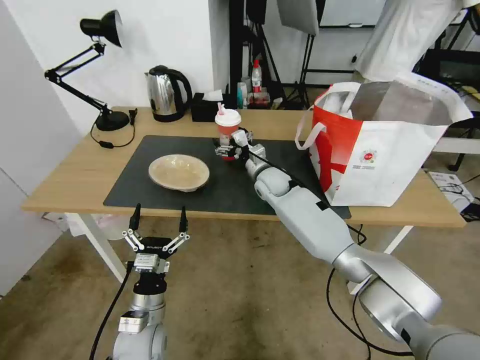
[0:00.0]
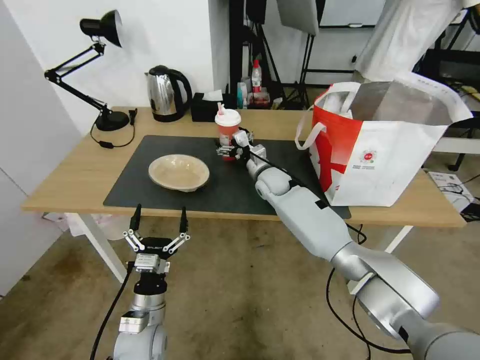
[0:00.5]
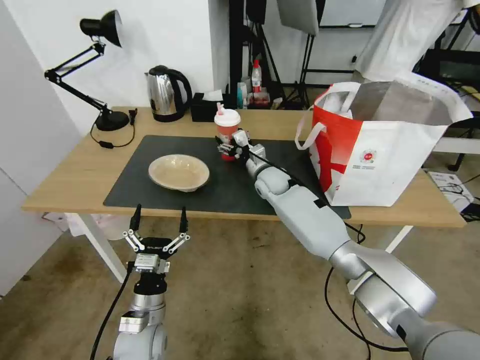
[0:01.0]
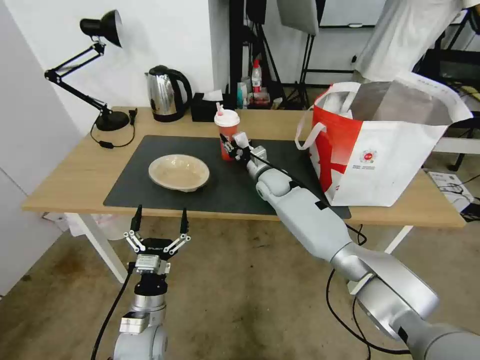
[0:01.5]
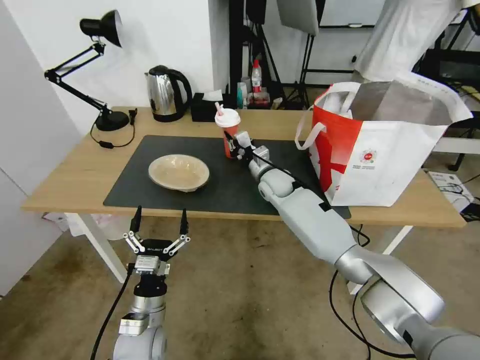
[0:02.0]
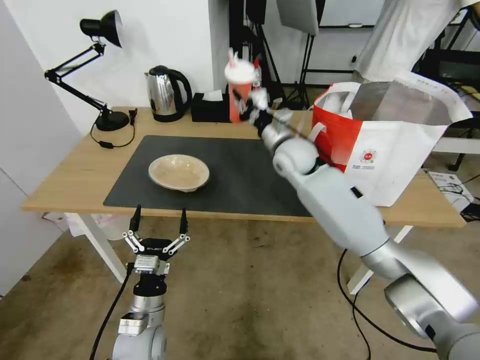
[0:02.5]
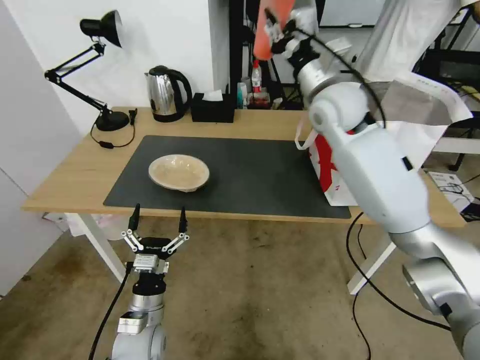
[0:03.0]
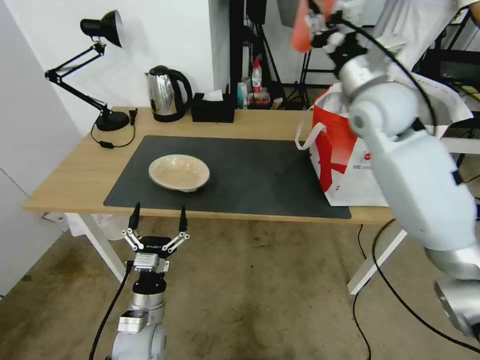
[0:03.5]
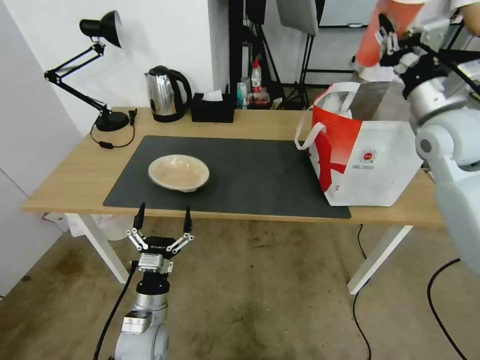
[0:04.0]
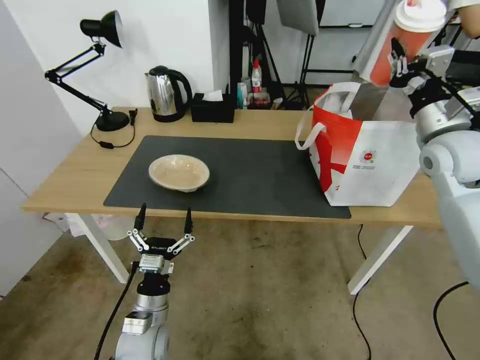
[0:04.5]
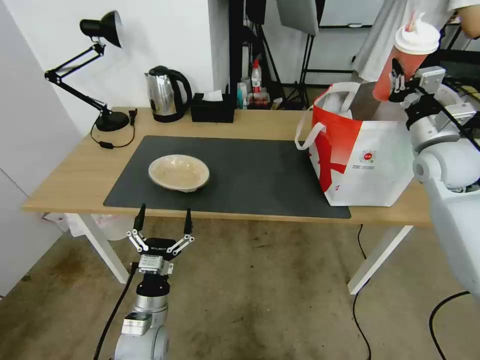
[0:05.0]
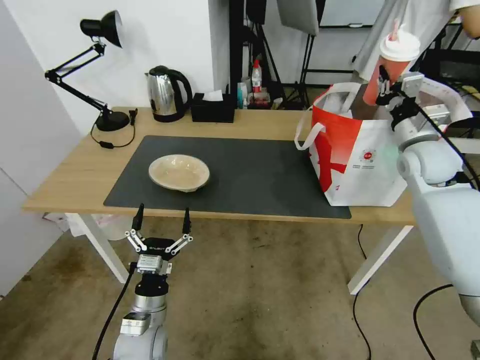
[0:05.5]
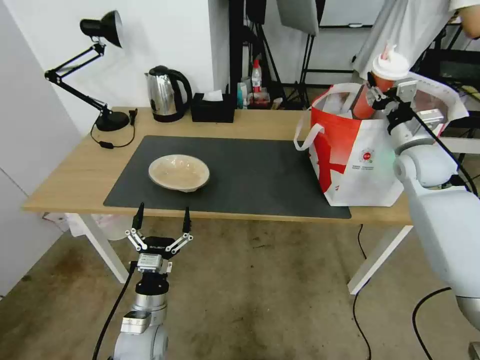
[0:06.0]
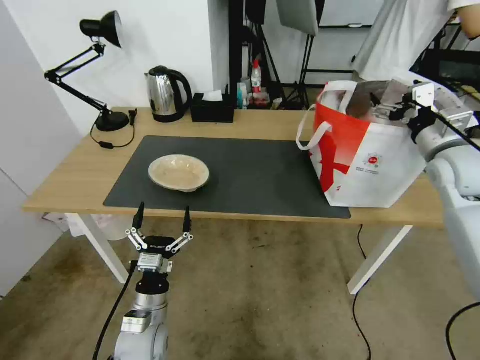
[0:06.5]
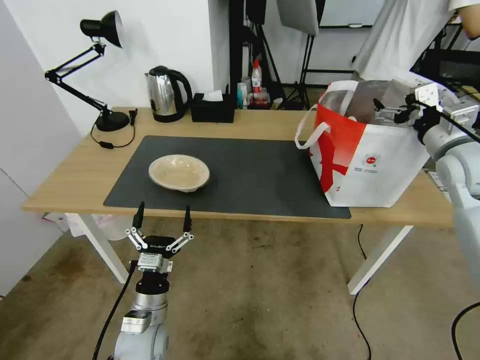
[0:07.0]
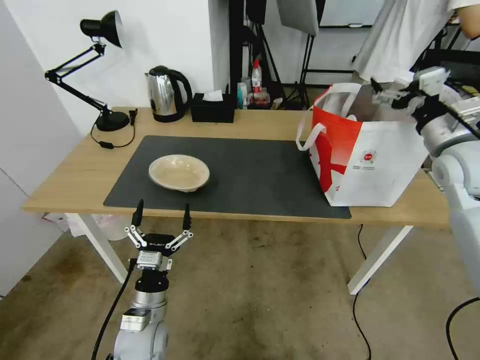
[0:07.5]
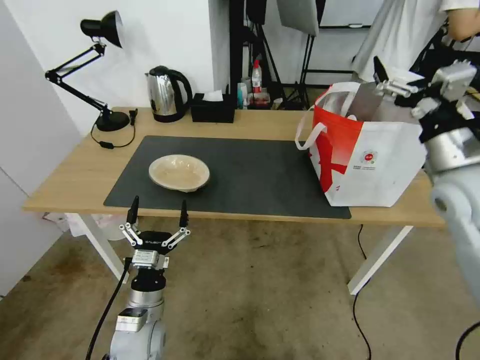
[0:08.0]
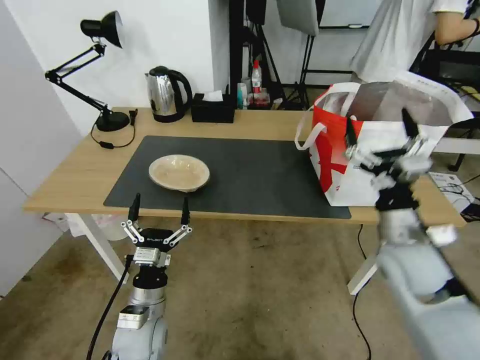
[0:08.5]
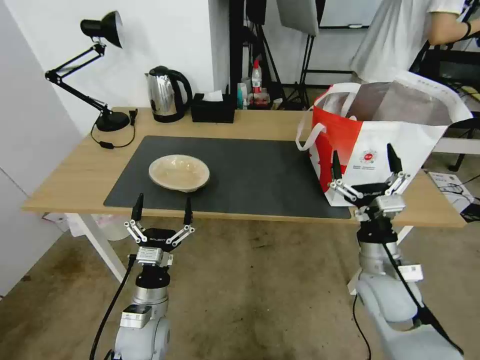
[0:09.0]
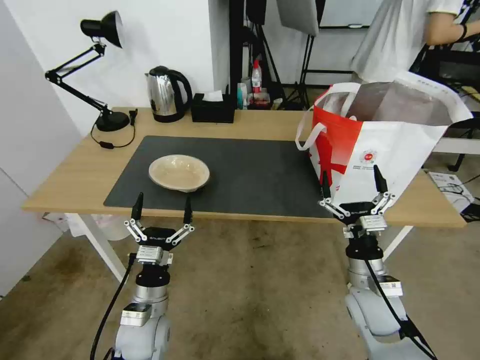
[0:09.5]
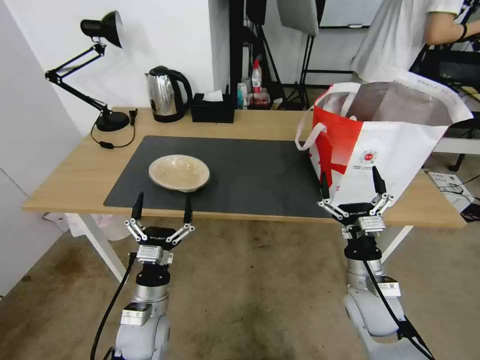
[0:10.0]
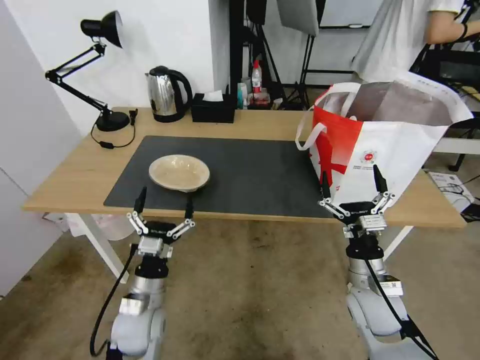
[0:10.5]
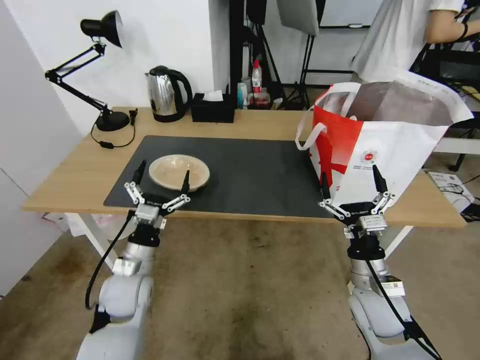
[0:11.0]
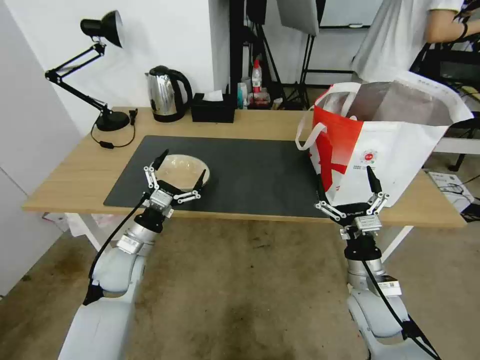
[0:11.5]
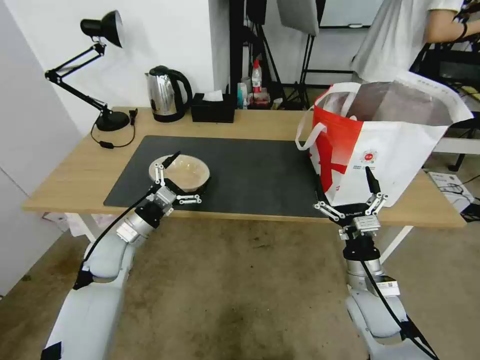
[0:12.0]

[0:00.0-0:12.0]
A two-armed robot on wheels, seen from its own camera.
Task of the whole recording: Pick up the trash from the table and place it into the takeout bag.
0:00.0 to 0:02.0: The right gripper closes its fingers.
0:02.0 to 0:04.0: The right gripper shifts some 40 cm upward, to the right and backward.
0:04.0 to 0:06.0: The right gripper goes some 10 cm downward, and opens up.
0:06.0 to 0:08.0: The right gripper goes roughly 15 cm backward, and opens.
0:08.0 to 0:10.0: The right gripper moves downward, approximately 25 cm.
0:10.0 to 0:12.0: The left gripper is displaced forward, to the left and upward by roughly 20 cm.

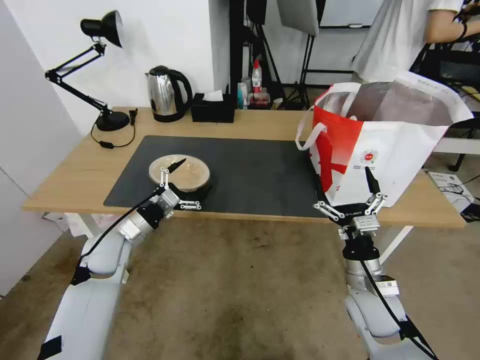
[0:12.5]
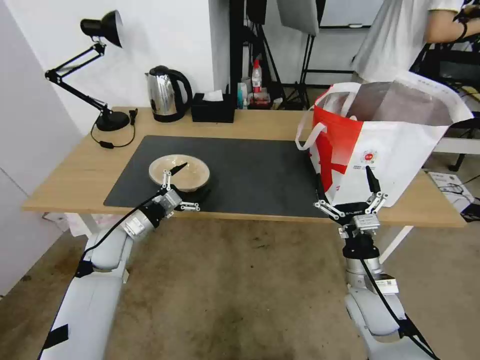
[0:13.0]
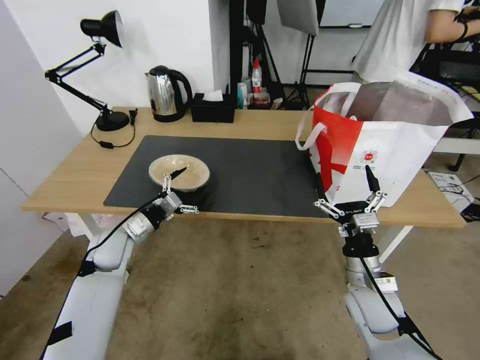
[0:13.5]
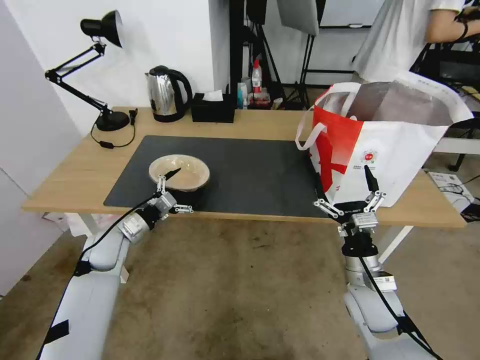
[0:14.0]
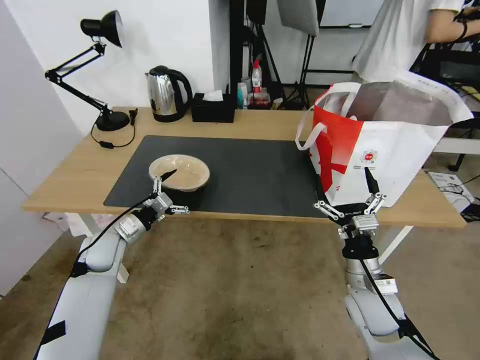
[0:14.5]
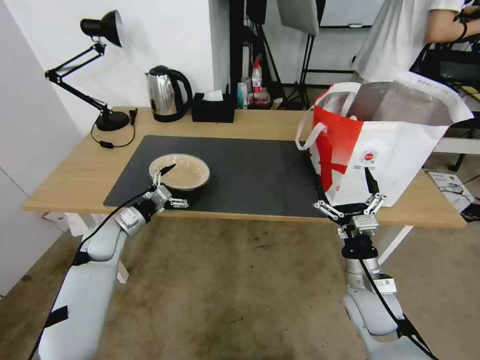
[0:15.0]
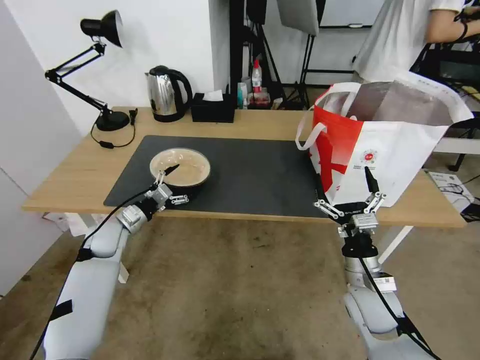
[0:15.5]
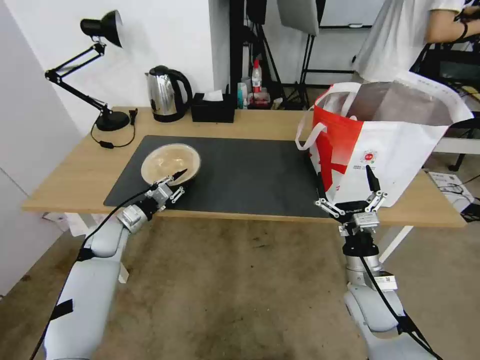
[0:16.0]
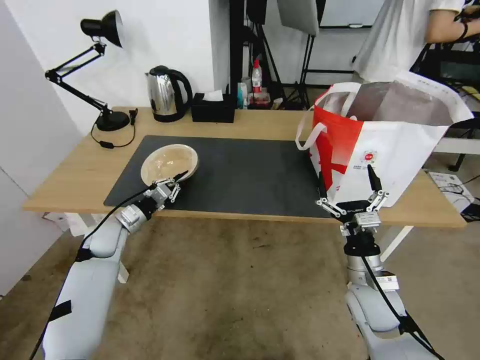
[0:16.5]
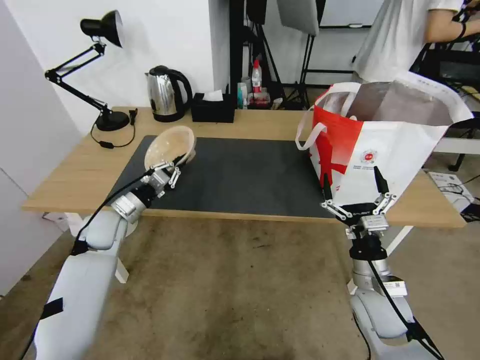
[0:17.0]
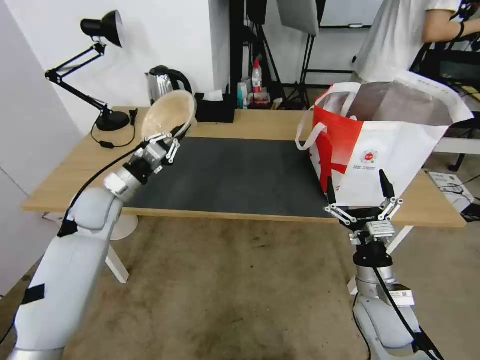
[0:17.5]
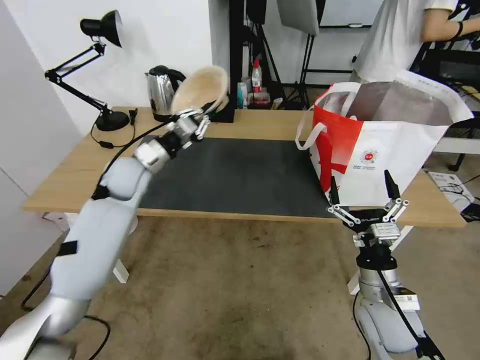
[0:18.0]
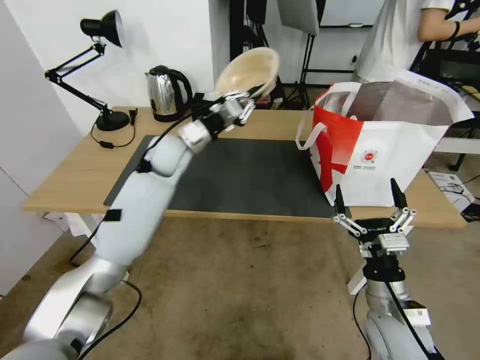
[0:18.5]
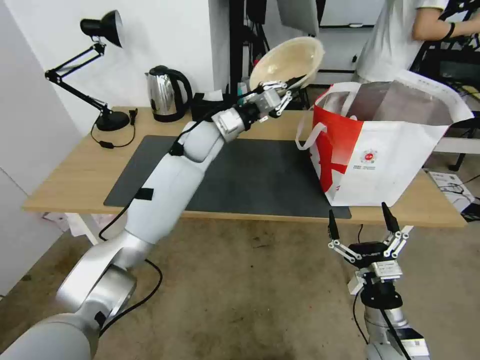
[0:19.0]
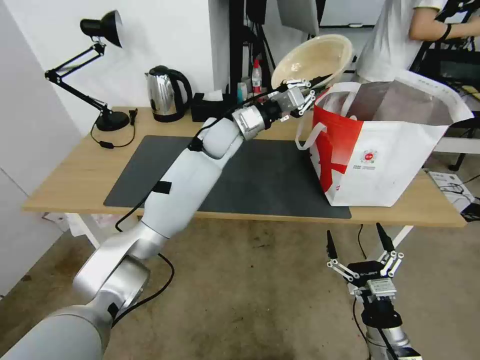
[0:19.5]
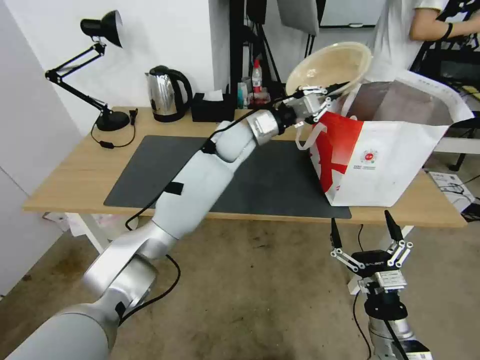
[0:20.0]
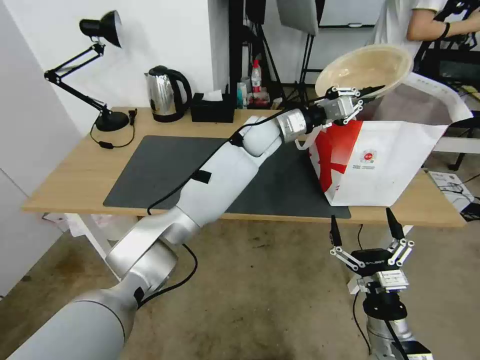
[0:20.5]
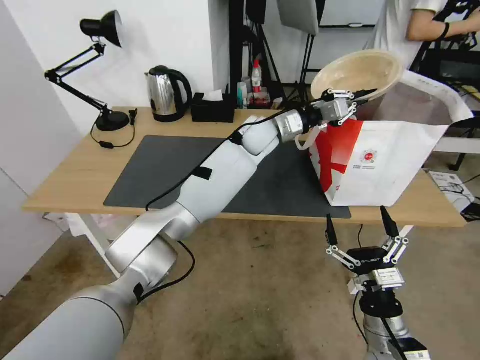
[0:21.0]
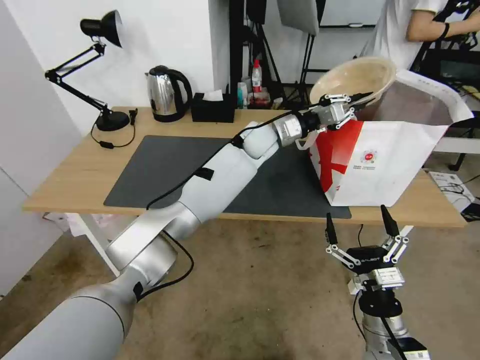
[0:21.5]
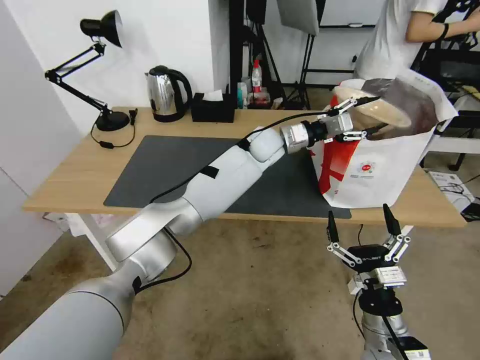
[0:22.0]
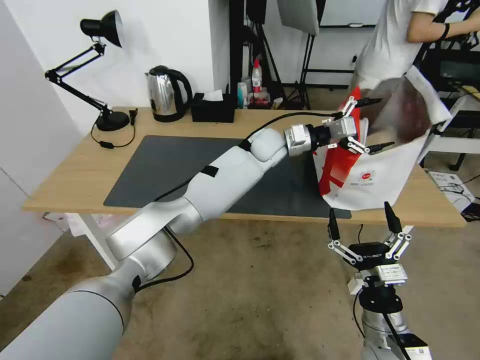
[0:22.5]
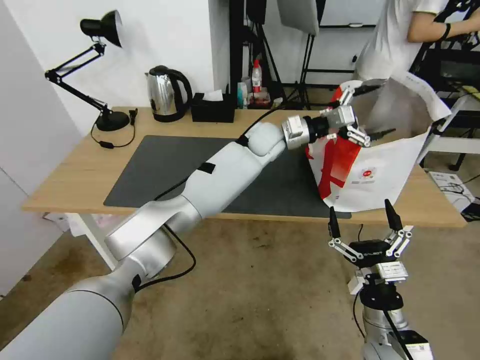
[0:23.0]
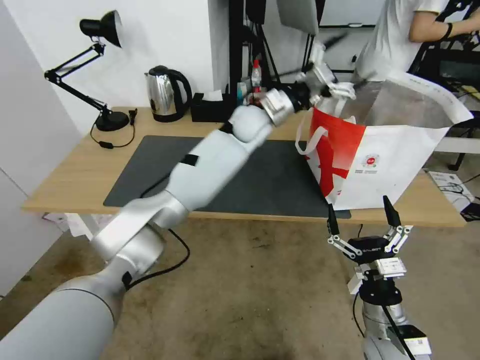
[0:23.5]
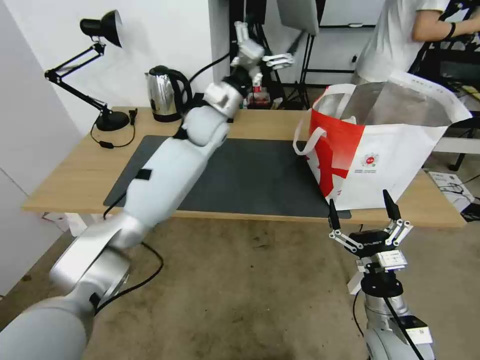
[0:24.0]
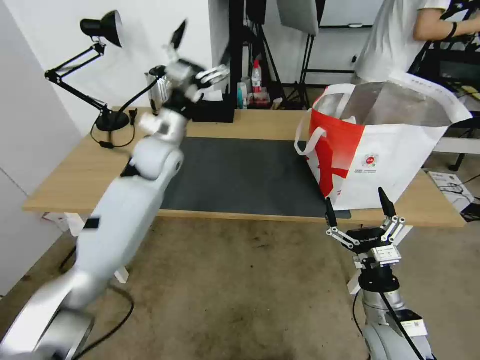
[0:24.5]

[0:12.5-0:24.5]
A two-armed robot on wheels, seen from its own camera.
Task of the whole recording: Pick up the trash from the table and place it into the takeout bag.
0:12.5 to 0:14.5: The left gripper changes place by approximately 5 cm.
0:14.5 to 0:16.5: The left gripper closes its fingers.
0:16.5 to 0:18.5: The left gripper heads upward, to the right and forward, covering about 30 cm, while the right gripper heads backward, covering some 5 cm.
0:18.5 to 0:20.5: The right gripper goes about 5 cm backward. Meanwhile the left gripper travels to the right by about 20 cm.
0:20.5 to 0:22.5: The left gripper opens up.
0:22.5 to 0:24.5: The left gripper shifts some 25 cm to the left.

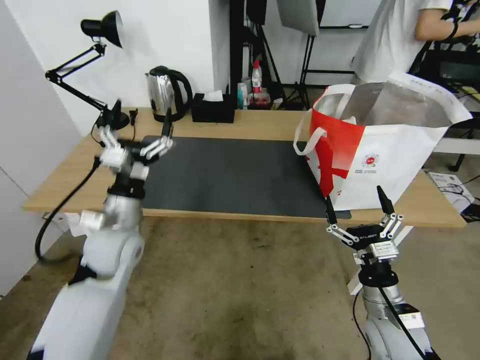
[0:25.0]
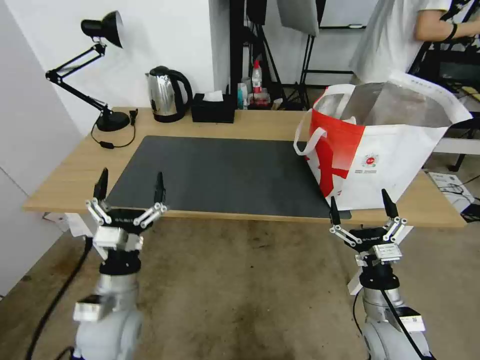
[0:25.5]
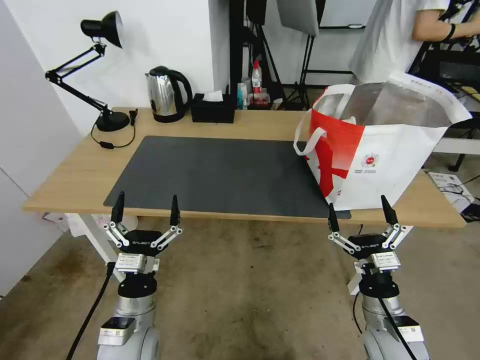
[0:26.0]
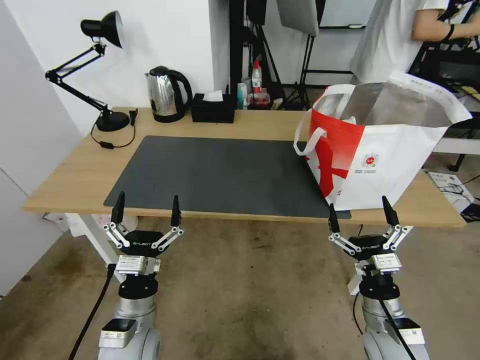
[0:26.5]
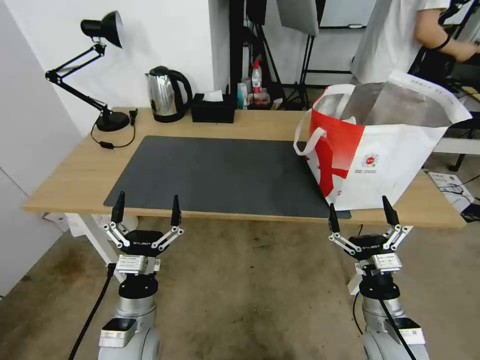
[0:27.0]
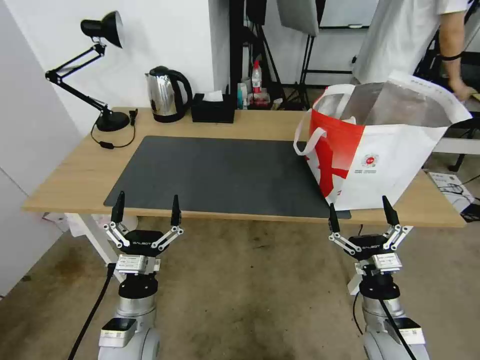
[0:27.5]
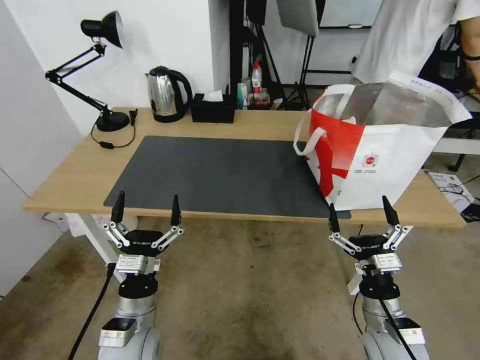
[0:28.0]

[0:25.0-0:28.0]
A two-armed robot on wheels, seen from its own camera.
Task of the whole recording: Pick up the trash from the table and place it into the takeout bag.
0:25.0 to 0:26.5: The left gripper is displaced backward and downward by approximately 20 cm.
0:26.5 to 0:28.0: Neither gripper changes place.
